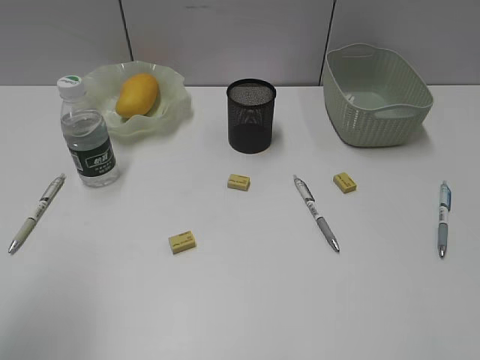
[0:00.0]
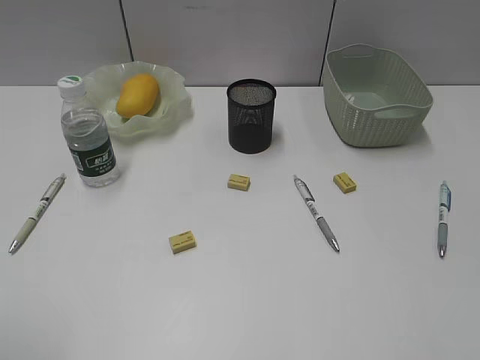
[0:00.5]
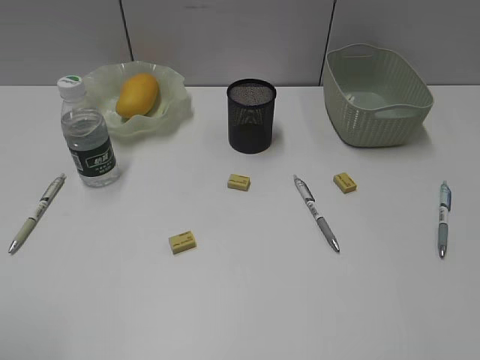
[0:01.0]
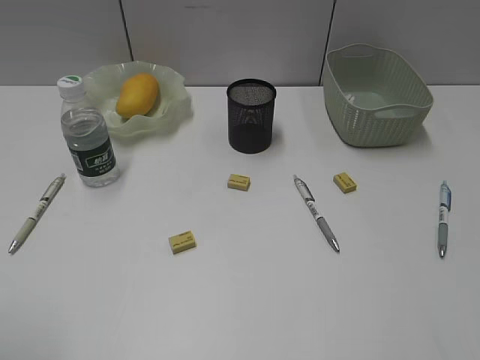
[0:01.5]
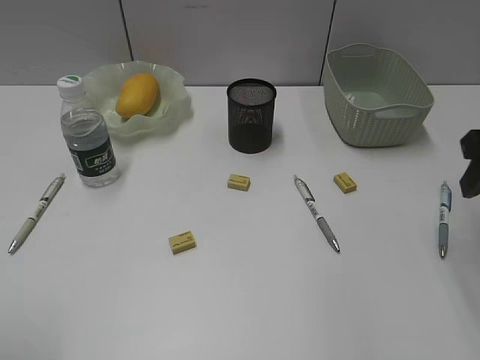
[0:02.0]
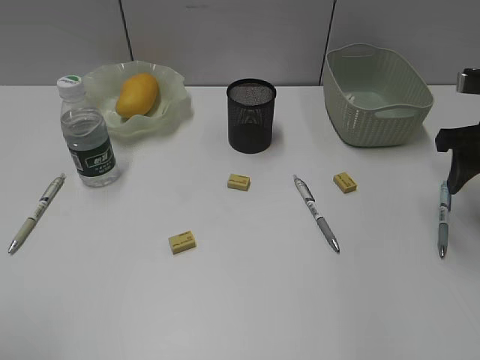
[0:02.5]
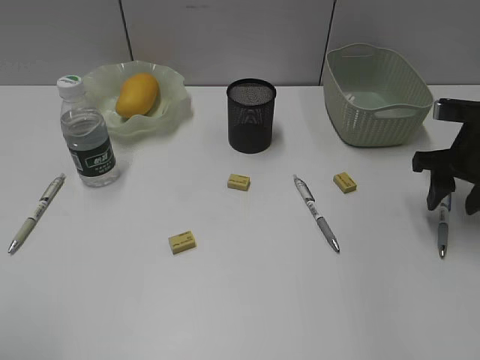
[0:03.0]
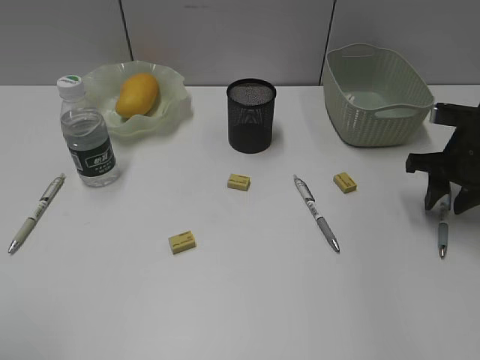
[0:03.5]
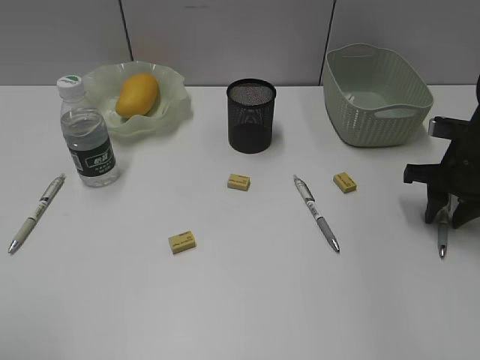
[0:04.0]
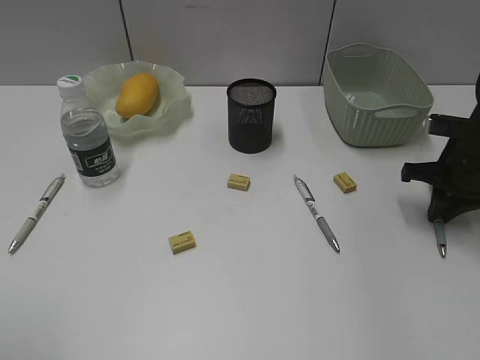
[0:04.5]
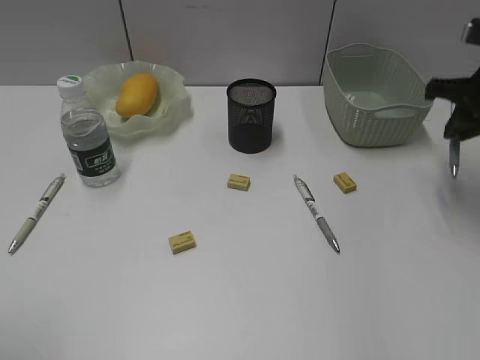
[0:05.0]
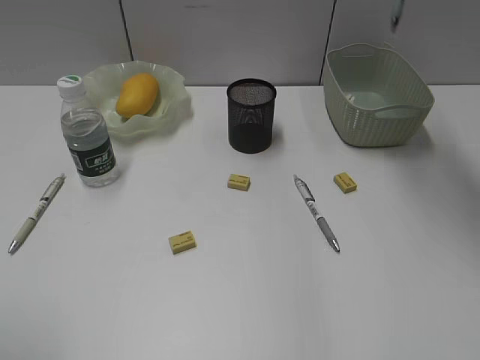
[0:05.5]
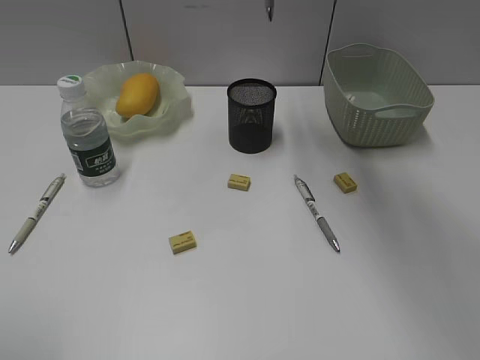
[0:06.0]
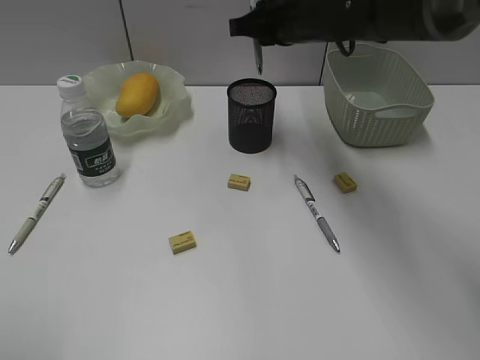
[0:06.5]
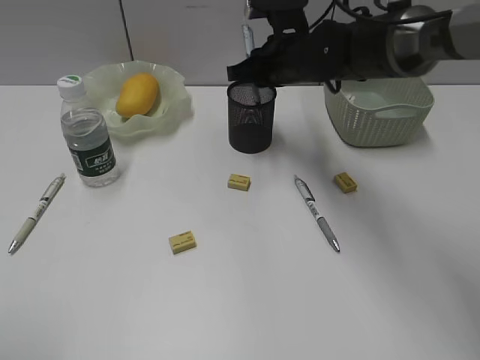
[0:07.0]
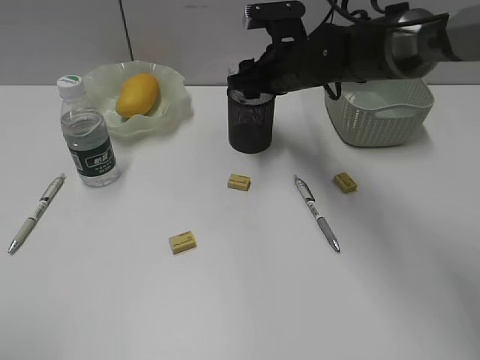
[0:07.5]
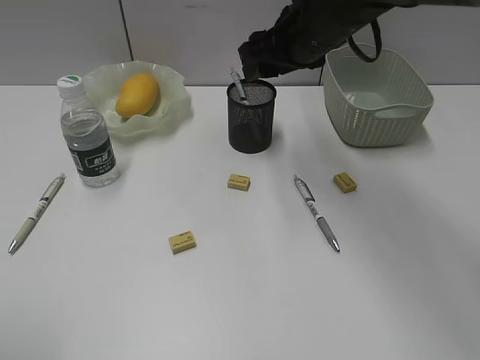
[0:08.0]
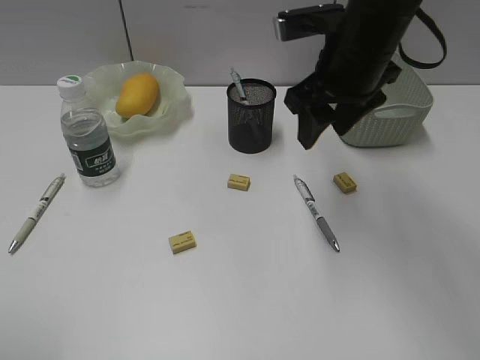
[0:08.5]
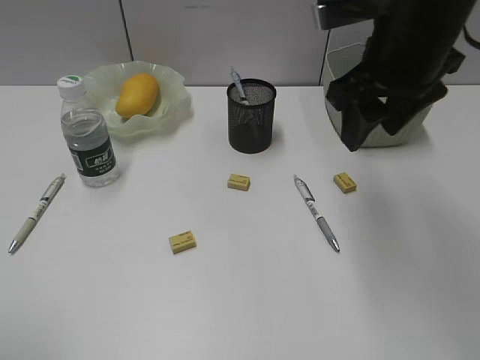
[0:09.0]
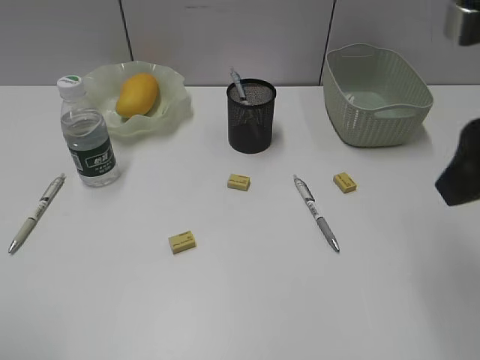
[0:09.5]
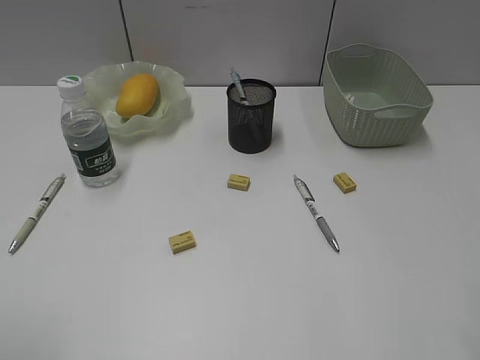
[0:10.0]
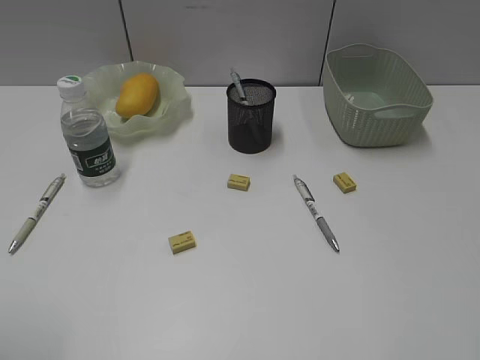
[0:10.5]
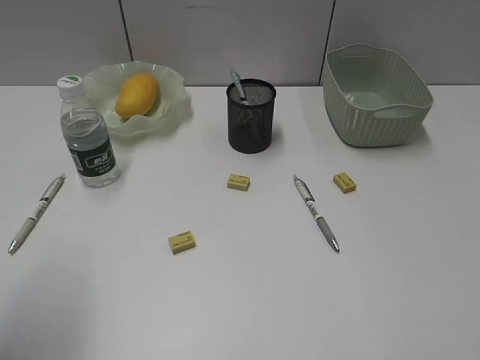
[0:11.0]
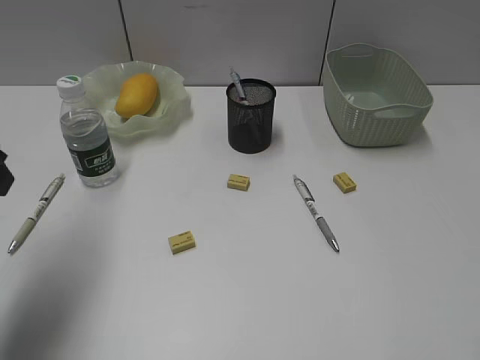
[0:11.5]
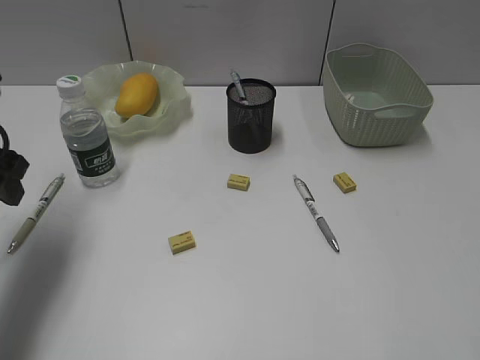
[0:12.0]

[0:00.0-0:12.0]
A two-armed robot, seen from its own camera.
Step, 0:00.0 to 0:04.5: Grasp the blue pen with right gripper.
Step, 0:05.0 to 0:07.5: Place the blue pen in pen holder with right gripper.
0:00.0 to 0:02.0: The right gripper shifts approximately 20 cm forward.
0:02.0 to 0:04.0: The right gripper heads downward and forward, covering approximately 20 cm.
0:04.0 to 0:06.0: The right gripper moves upward and to the left, about 30 cm, and closes.
0:06.0 to 0:08.0: The right gripper is displaced downward by some 10 cm, and opens up.
0:08.0 to 0:10.0: The right gripper goes about 35 cm backward and to the right.
0:10.0 to 0:12.0: The left gripper travels forward by some 25 cm.

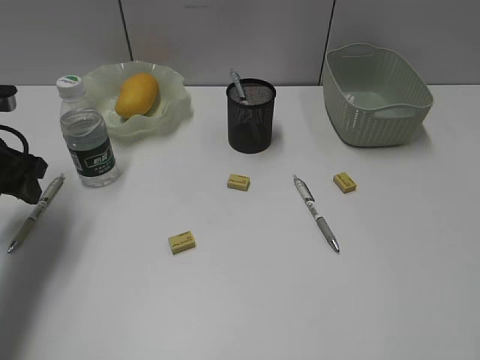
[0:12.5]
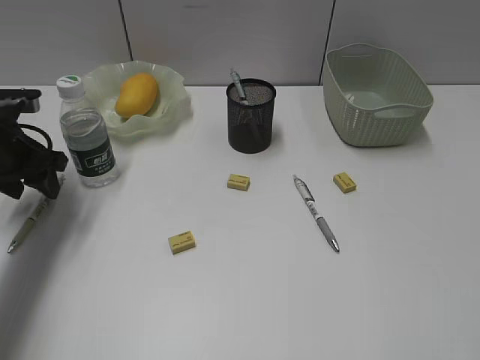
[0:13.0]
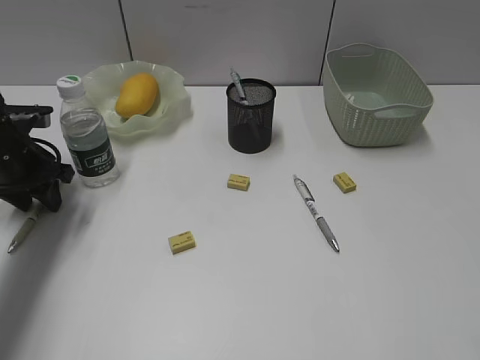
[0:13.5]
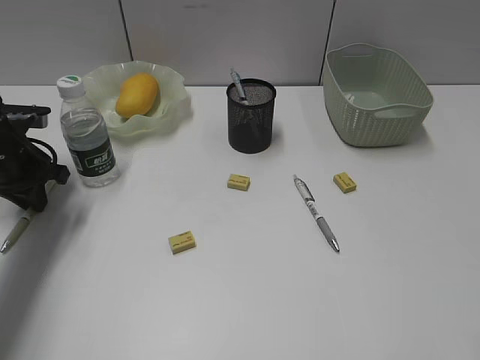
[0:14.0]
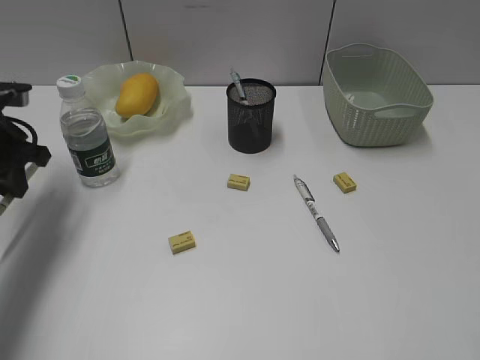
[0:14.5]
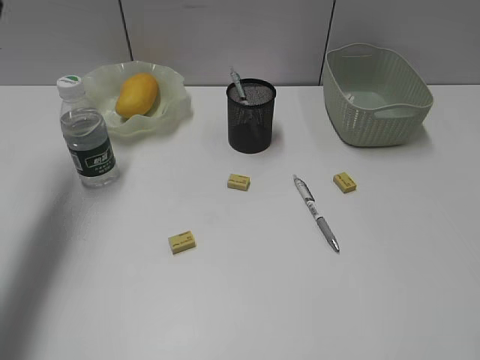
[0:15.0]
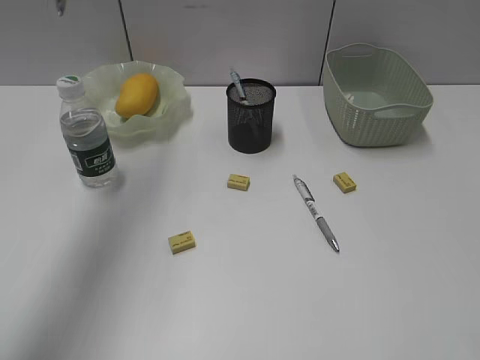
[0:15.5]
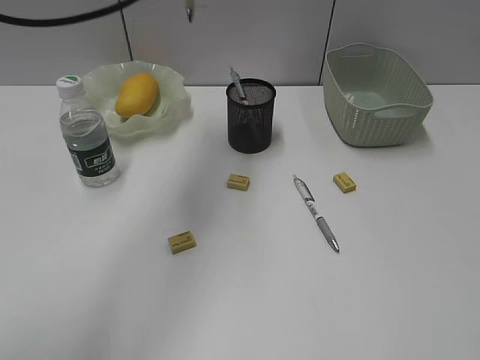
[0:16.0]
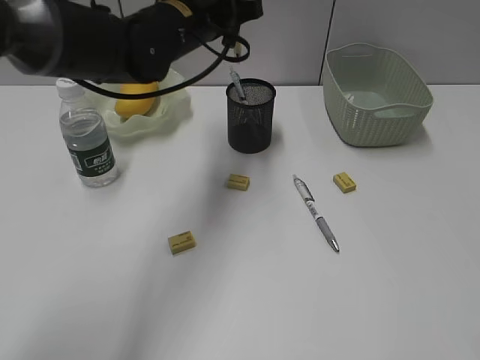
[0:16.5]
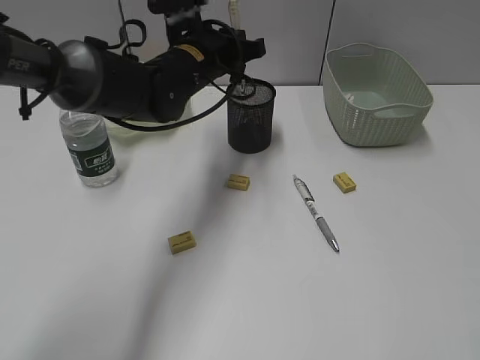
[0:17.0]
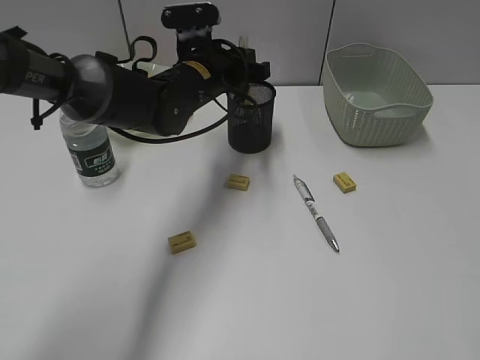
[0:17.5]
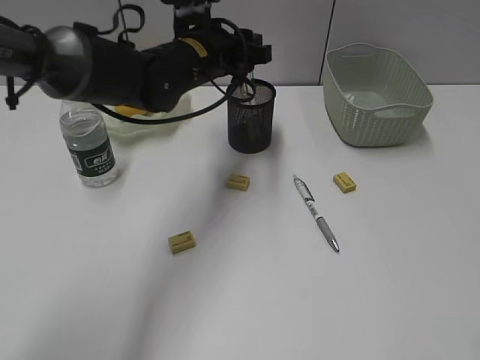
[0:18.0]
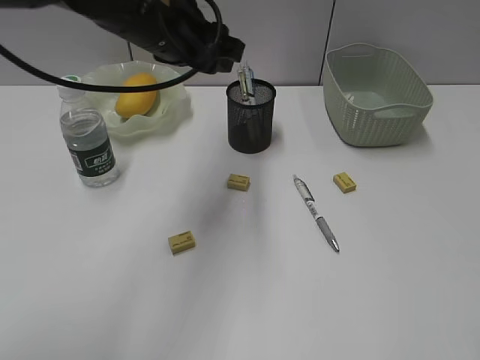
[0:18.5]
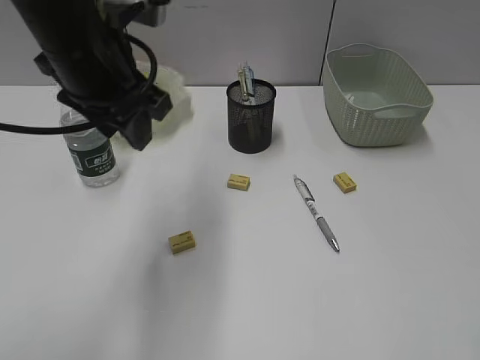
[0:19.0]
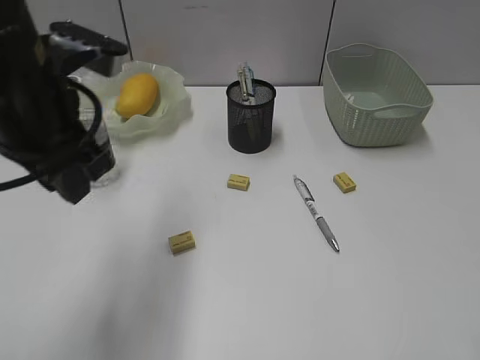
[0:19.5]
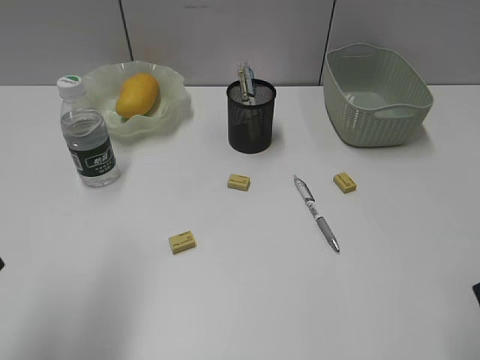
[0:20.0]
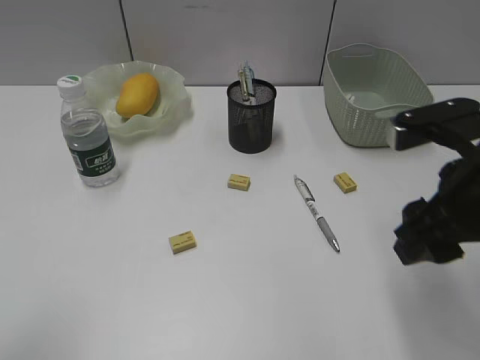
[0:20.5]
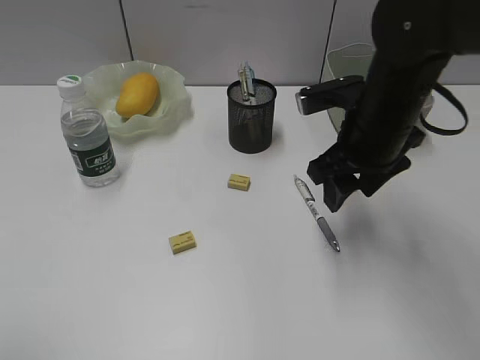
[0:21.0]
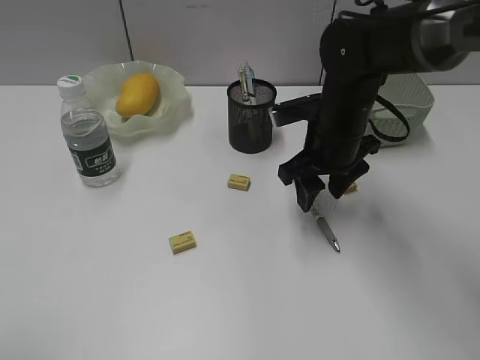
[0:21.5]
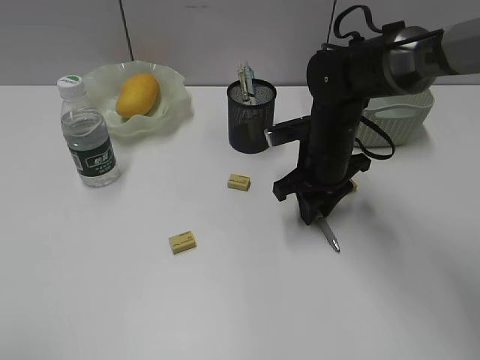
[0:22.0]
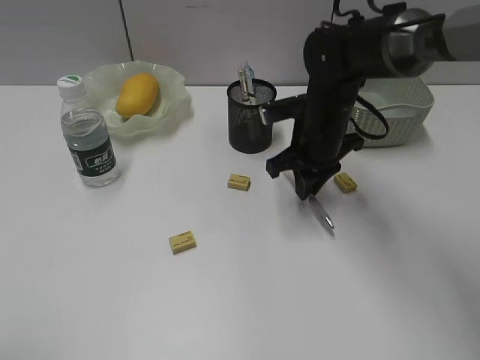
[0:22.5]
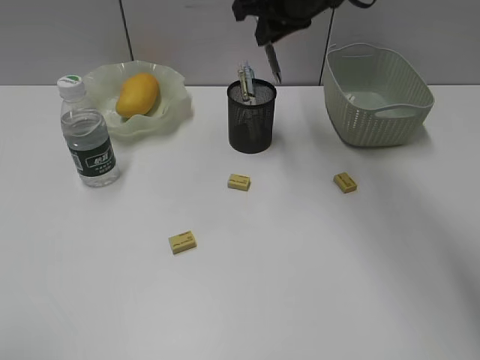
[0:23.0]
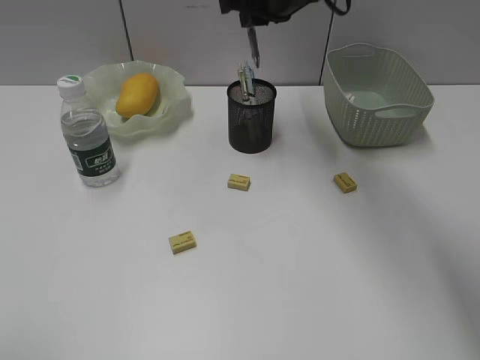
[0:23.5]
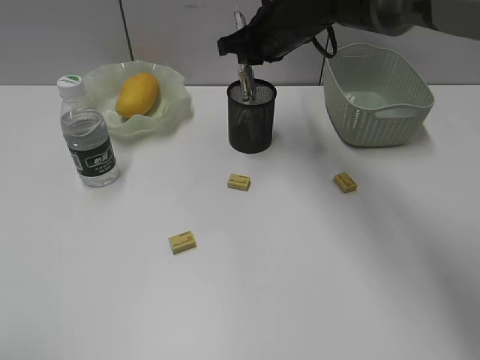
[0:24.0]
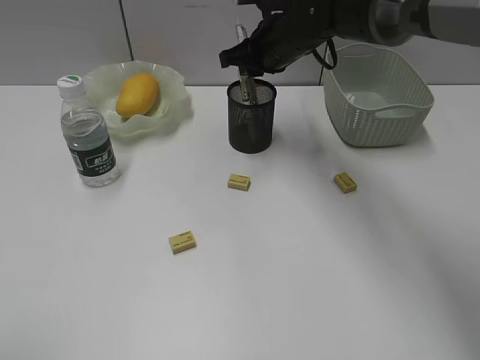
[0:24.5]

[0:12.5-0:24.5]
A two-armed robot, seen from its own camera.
Step, 0:14.5 to 0:17.5: Place the yellow pen in pen holder with left gripper.
Step, 0:18.0 to 0:22.0: Grasp the gray pen with left gripper.
0:12.5 to 0:14.5: The left gripper closes.
0:14.5 to 0:16.5: The left gripper travels to the right by approximately 25 cm.
0:16.5 to 0:18.5: The left gripper moves about 10 cm downward and comes back, and opens up.
0:18.5 to 0:20.5: The left gripper is displaced backward and to the left by approximately 35 cm. Meanwhile the right gripper goes some 20 cm forward, to the left and downward.
0:20.5 to 0:22.5: The right gripper shifts roughly 25 cm forward, downward and to the left, and closes up.
0:22.5 to 0:24.5: The right gripper moves forward and upward, some 10 cm.

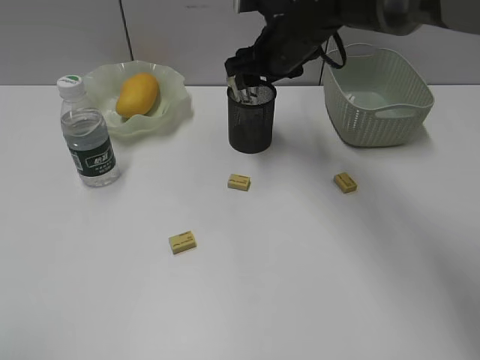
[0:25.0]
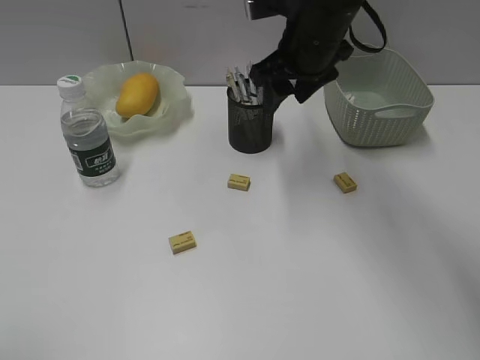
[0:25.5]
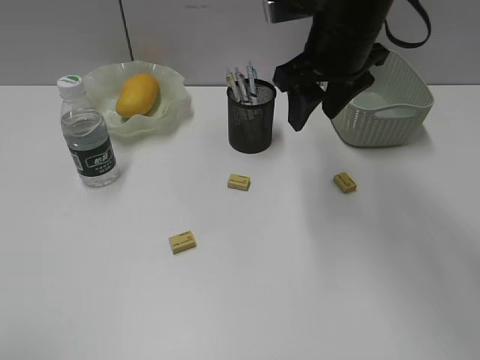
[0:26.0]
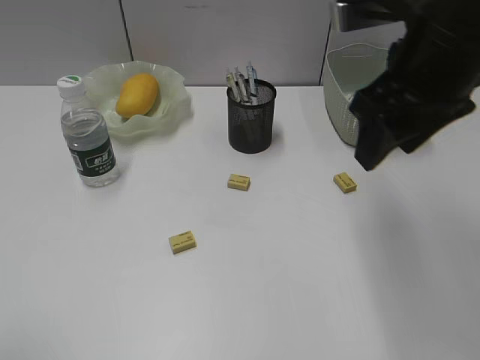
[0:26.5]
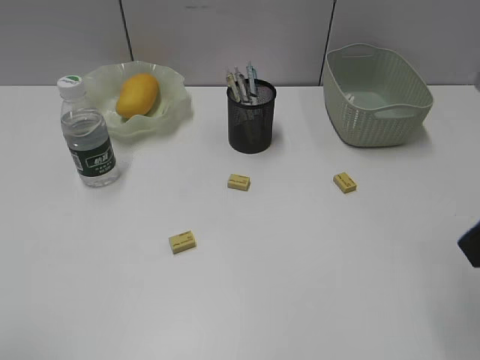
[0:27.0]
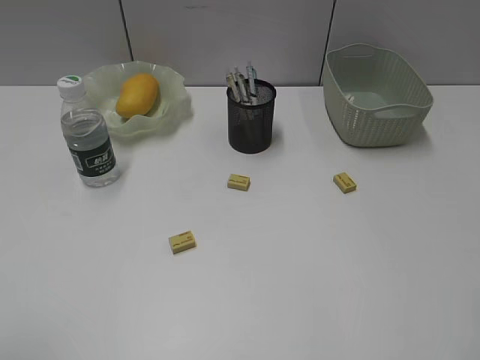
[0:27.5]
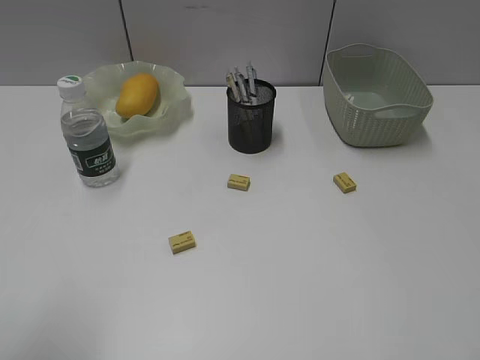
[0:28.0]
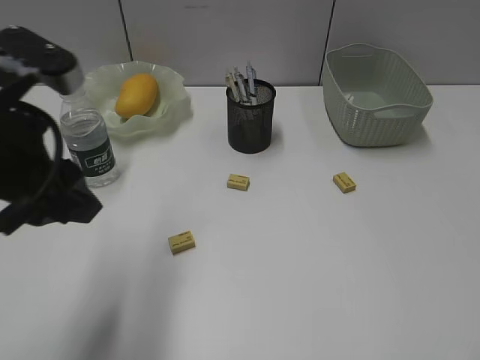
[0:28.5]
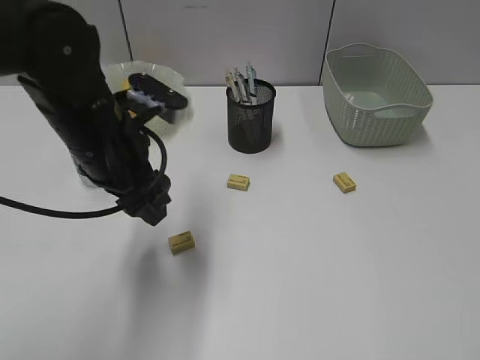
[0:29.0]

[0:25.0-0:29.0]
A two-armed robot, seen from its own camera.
0:25.0 to 0:27.0: The right gripper shifts approximately 35 cm backward and to the right.
0:27.0 to 0:29.0: The left gripper travels forward and to the right by roughly 30 cm. The right gripper goes some 15 cm backward and to the right.
